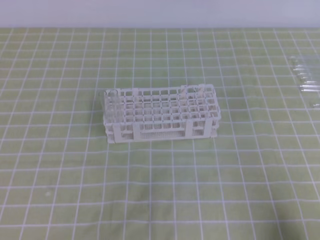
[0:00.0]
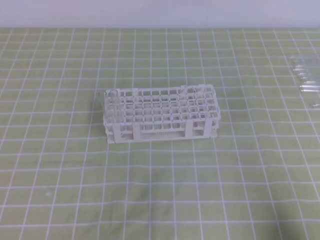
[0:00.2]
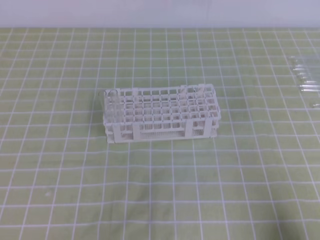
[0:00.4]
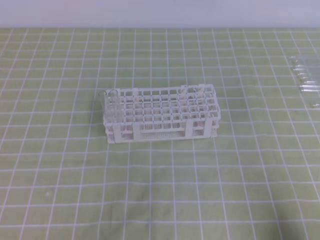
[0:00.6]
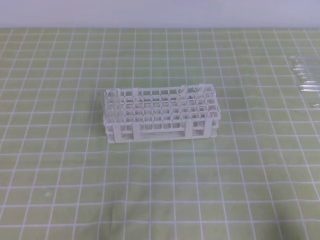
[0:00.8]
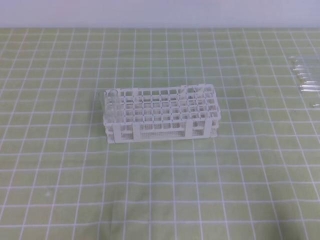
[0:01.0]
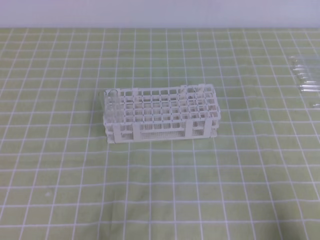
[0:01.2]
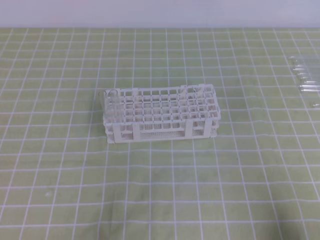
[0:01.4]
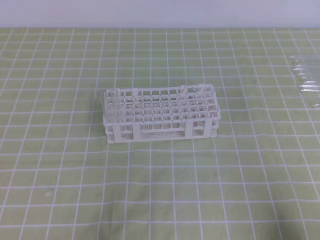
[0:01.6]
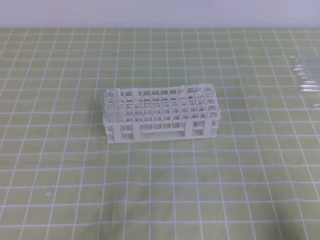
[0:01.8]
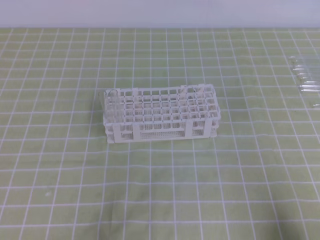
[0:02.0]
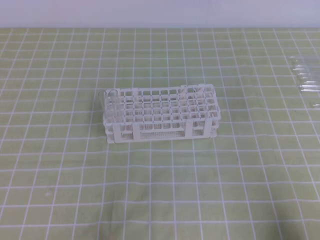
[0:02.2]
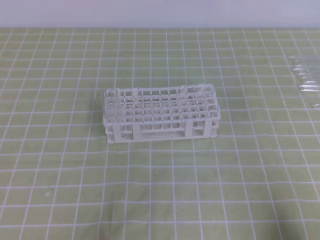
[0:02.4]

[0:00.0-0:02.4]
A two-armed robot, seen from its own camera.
0:01.2 to 0:02.4: Both grippers stay about where they are.
